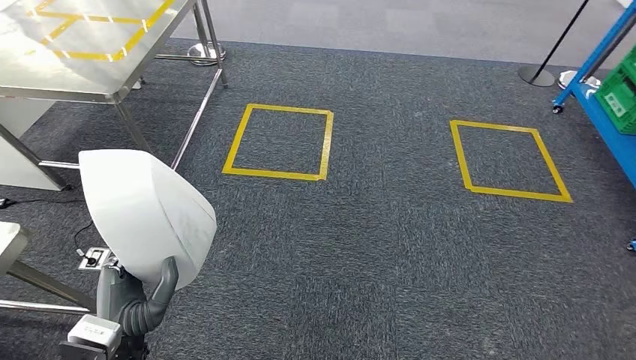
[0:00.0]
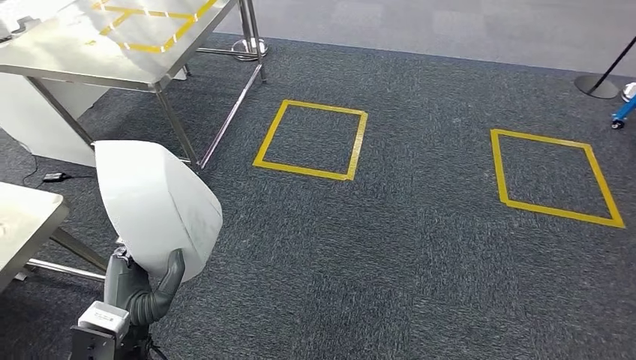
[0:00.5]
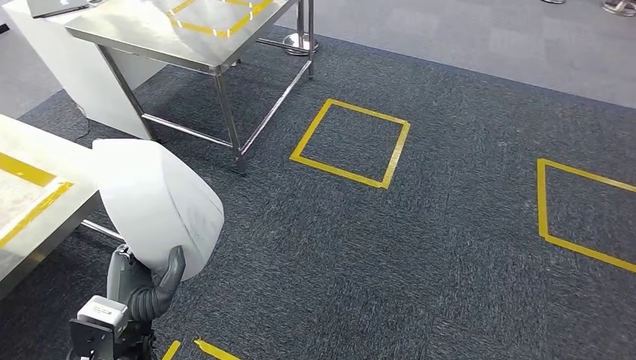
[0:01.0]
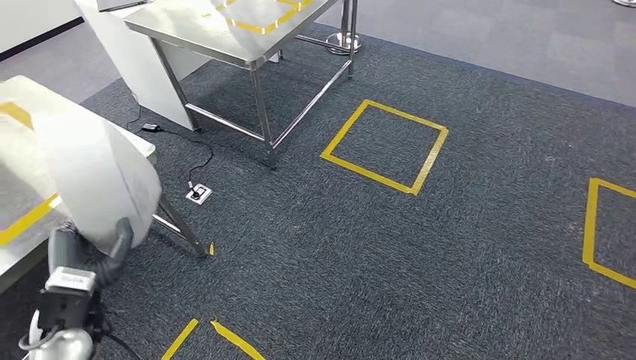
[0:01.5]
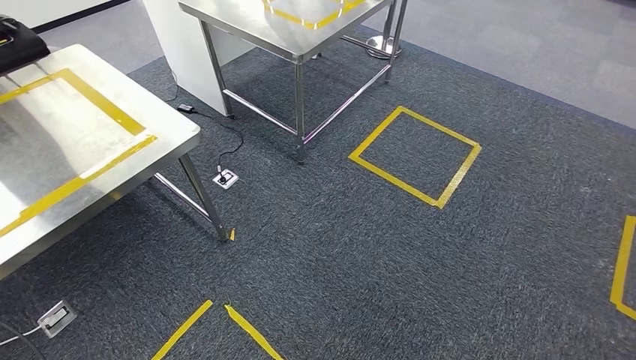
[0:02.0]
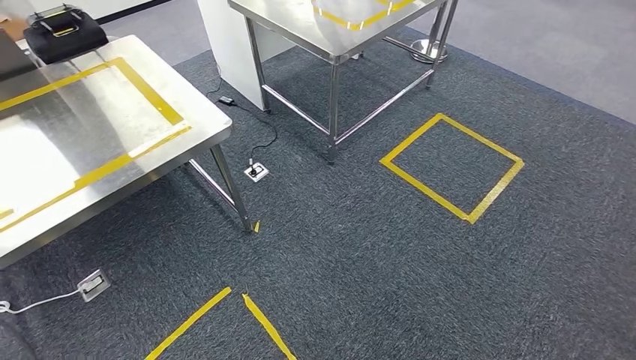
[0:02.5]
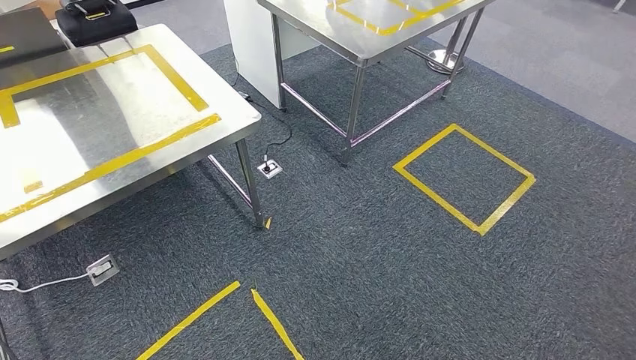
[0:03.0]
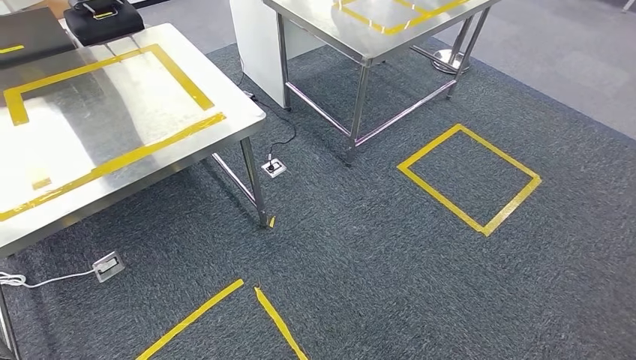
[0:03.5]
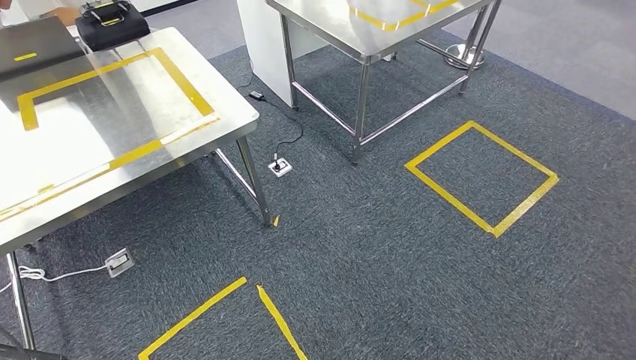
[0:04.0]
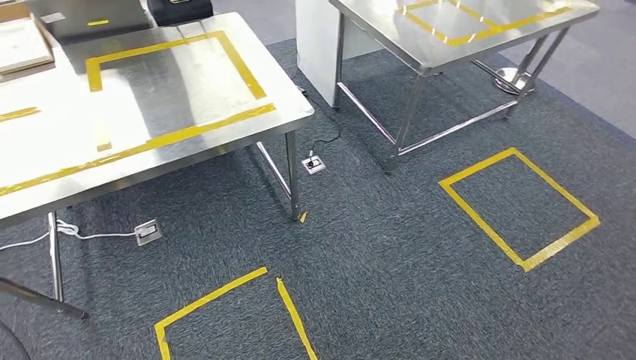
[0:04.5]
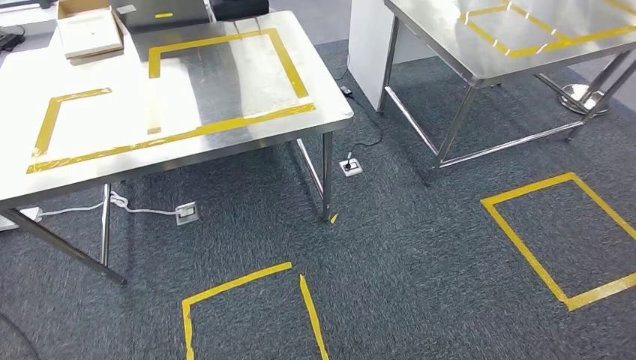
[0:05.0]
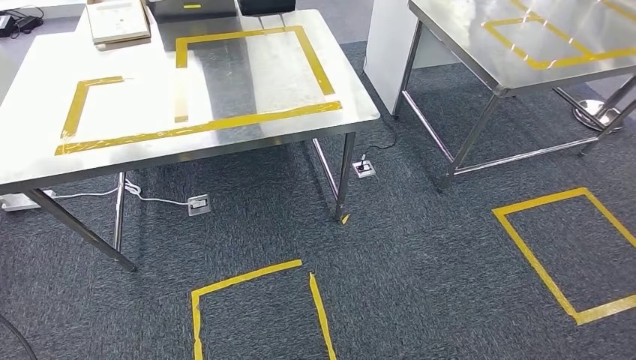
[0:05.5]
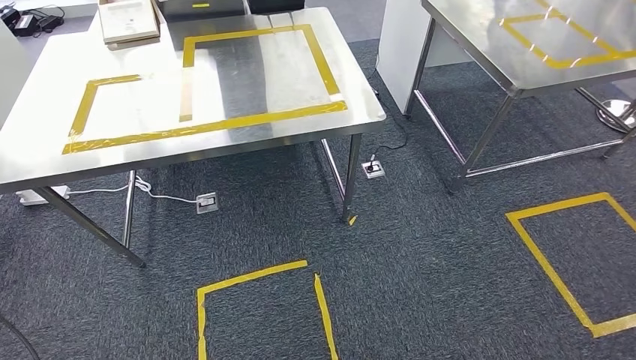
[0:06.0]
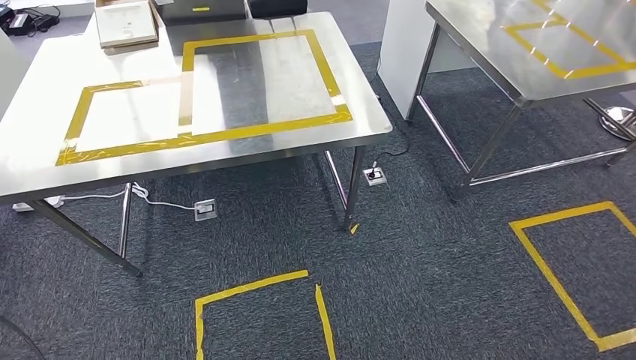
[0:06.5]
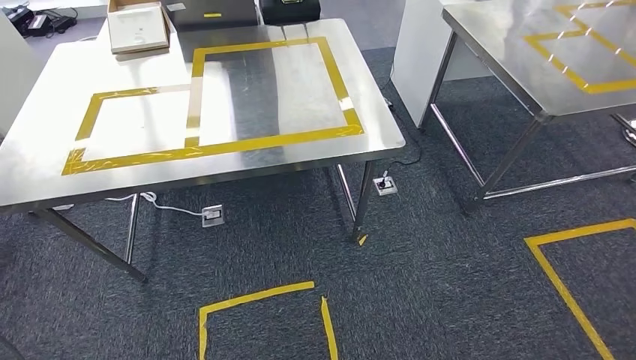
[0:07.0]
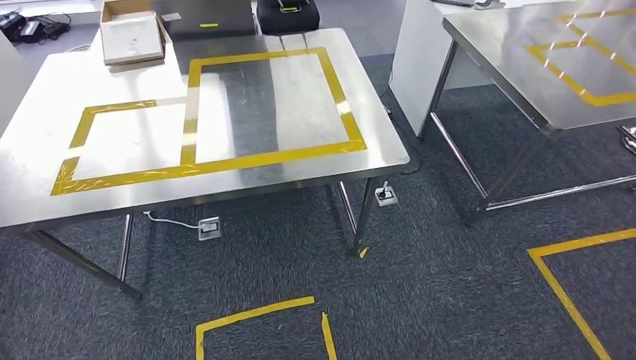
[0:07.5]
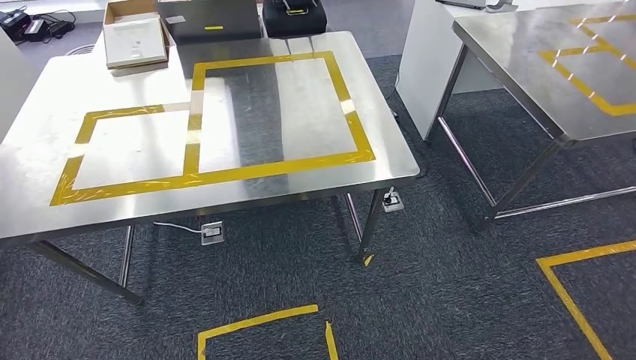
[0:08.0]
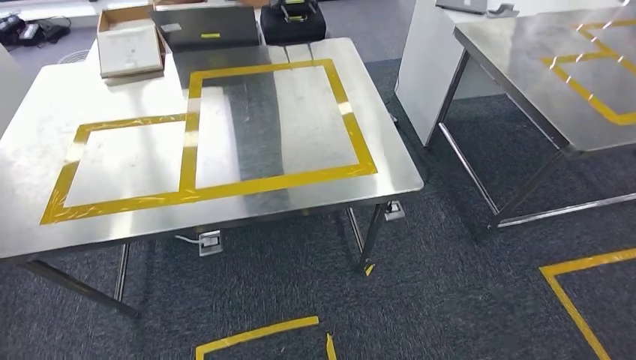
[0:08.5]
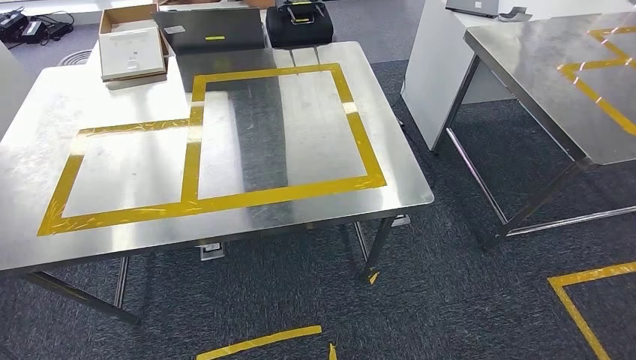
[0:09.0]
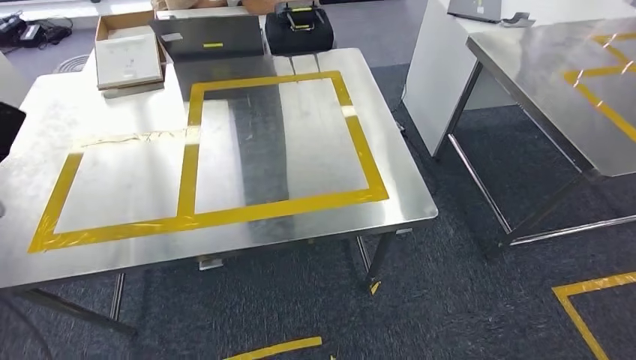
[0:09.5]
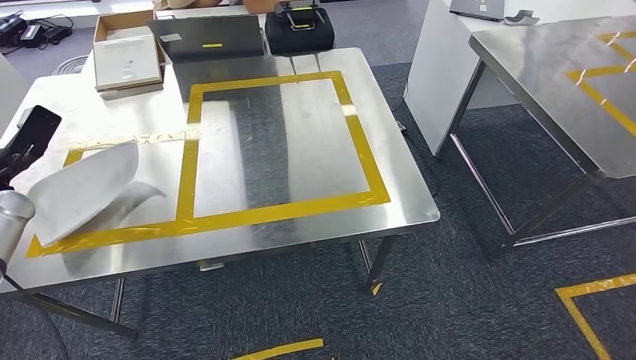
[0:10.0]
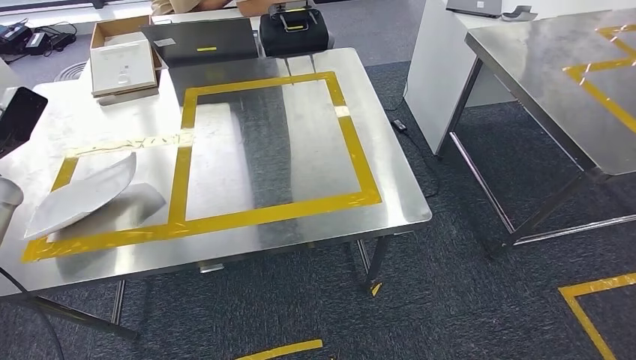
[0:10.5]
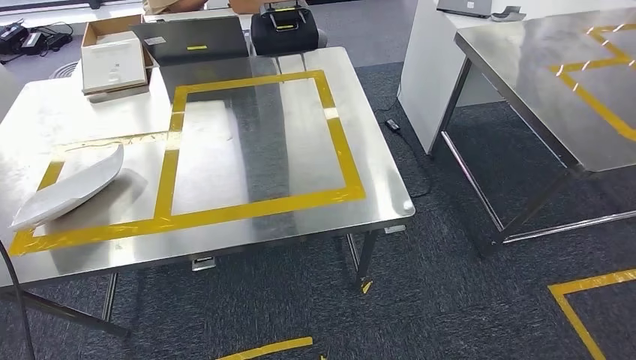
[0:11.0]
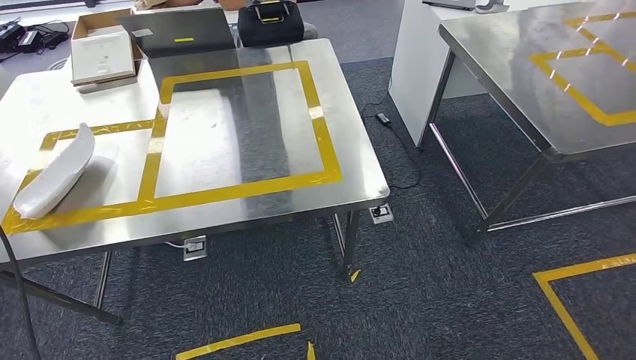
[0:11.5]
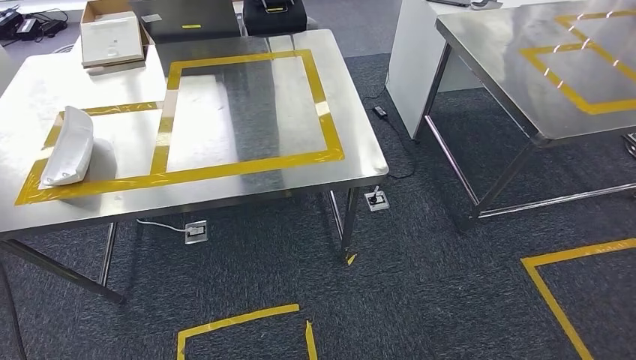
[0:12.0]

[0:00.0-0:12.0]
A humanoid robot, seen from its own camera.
Step, 0:00.0 to 0:09.5: Move the small parts to the workbench.
Step, 0:10.0 to 0:11.5: Insert the small parts into the corresponding holes on the workbench.

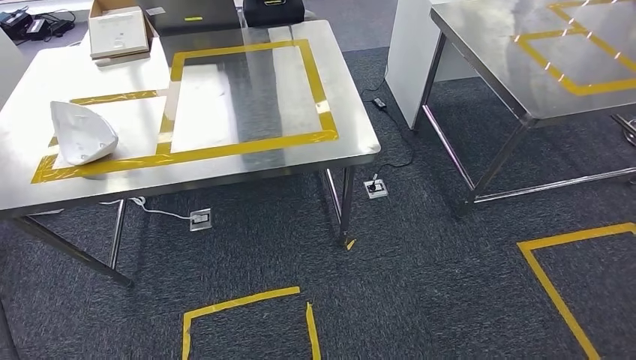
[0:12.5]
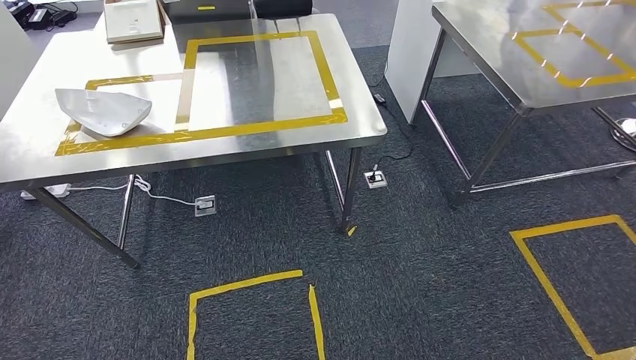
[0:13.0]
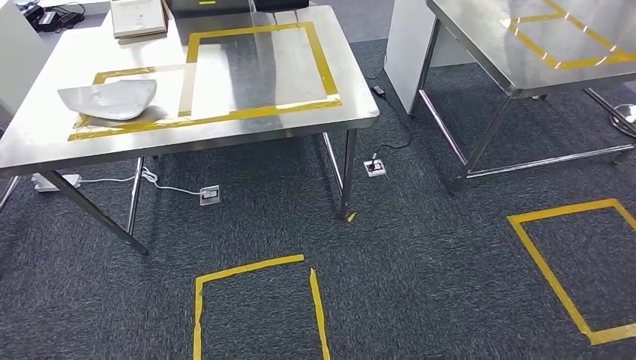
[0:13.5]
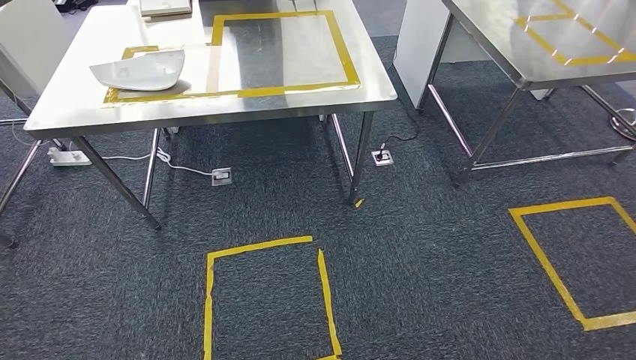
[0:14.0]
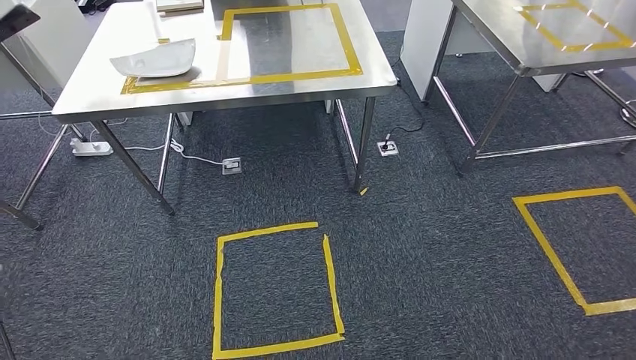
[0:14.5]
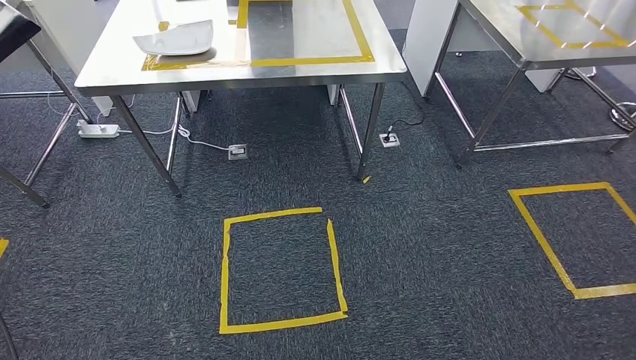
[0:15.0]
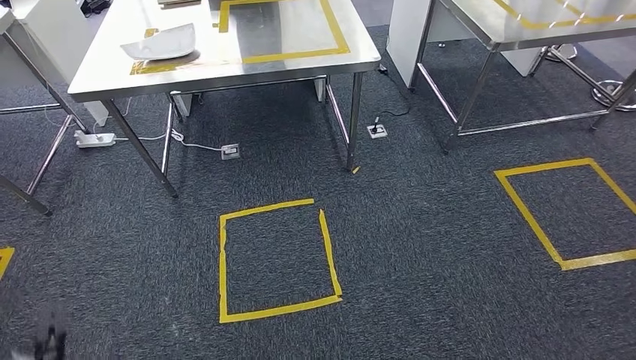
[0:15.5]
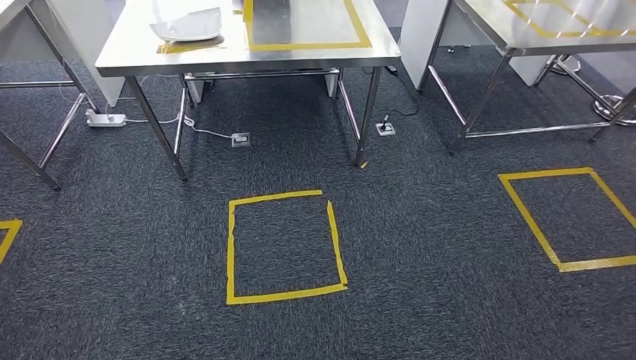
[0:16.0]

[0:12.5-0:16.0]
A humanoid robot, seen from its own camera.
Step, 0:12.5 to 0:16.0: Move to the initial position of the workbench.
